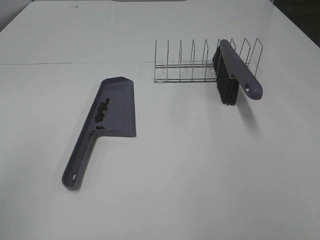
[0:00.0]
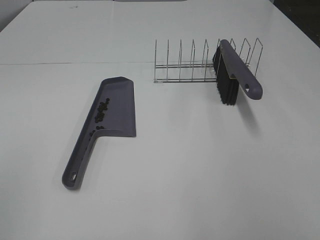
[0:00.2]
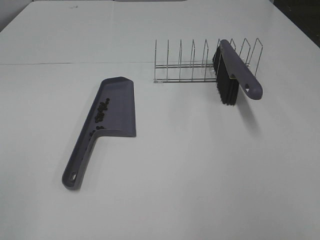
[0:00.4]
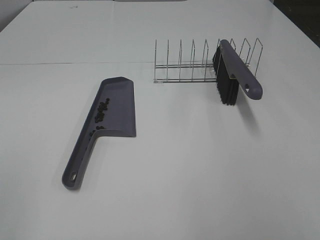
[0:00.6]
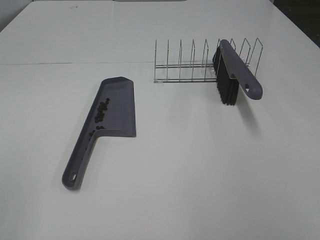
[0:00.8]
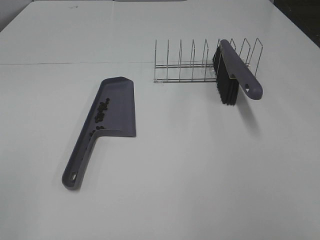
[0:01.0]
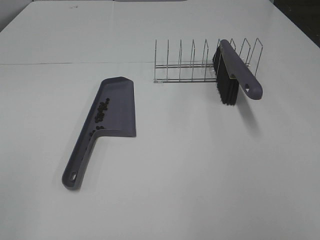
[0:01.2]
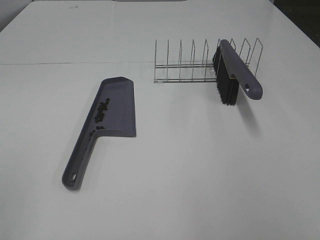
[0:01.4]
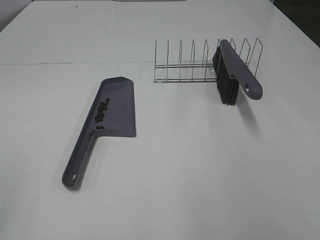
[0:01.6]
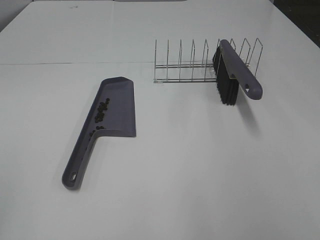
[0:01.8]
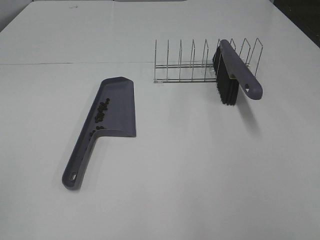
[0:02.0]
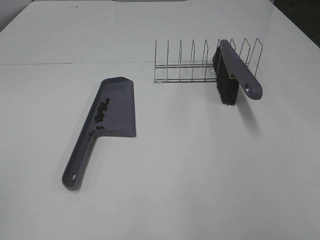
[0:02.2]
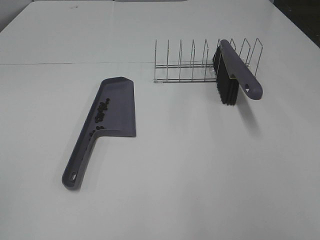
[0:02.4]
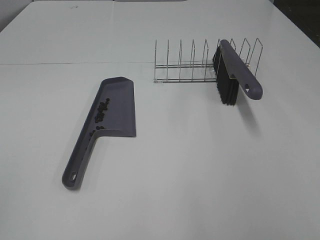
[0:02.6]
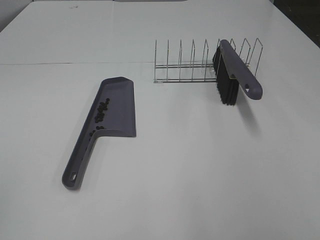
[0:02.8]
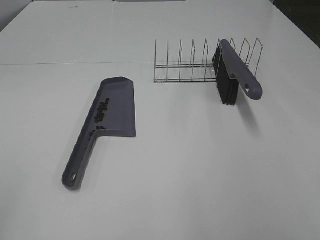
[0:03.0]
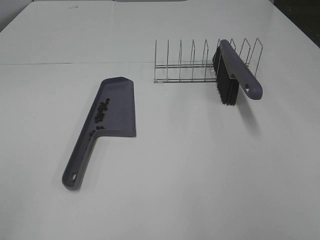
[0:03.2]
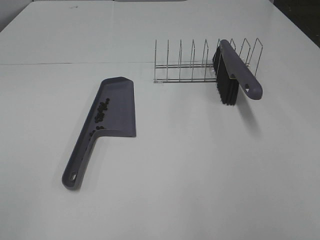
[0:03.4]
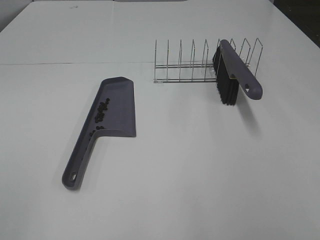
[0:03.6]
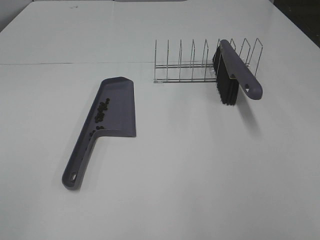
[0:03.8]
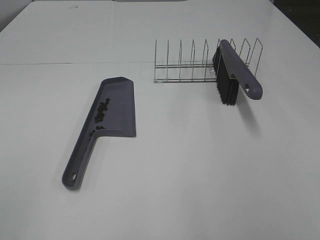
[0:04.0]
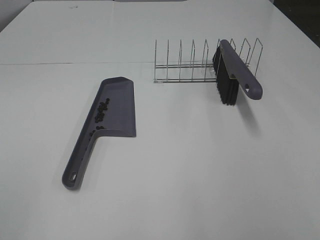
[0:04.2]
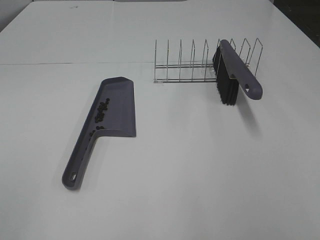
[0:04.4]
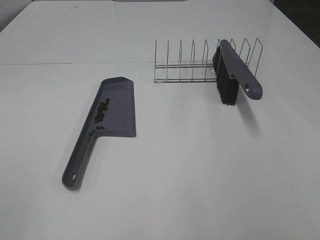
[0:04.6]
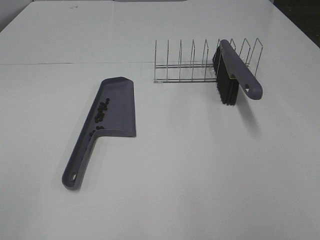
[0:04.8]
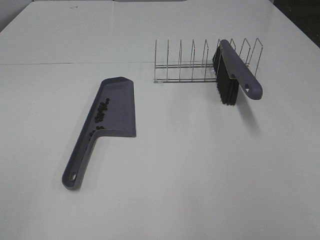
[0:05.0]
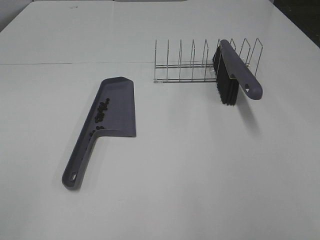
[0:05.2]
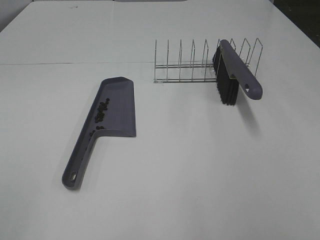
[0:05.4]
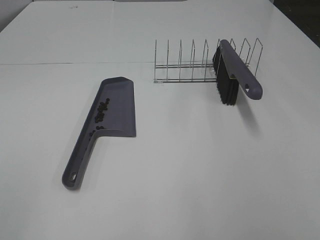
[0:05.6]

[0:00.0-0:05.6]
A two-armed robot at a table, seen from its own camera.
Task of the whole recording: Sweep Coffee Bean.
0:04.2 to 0:05.6: Neither gripper changes place.

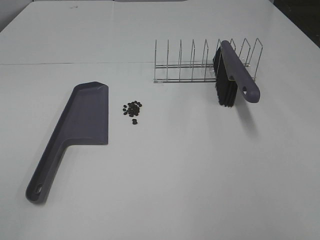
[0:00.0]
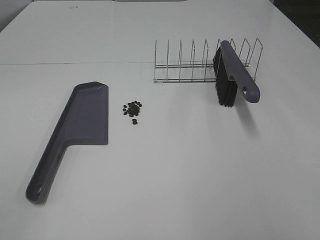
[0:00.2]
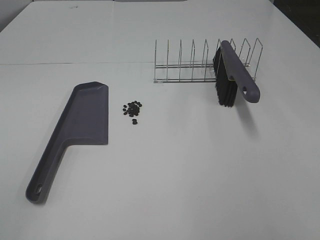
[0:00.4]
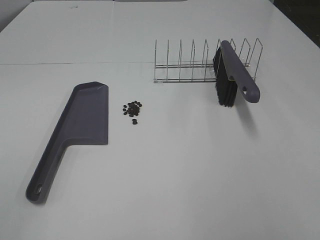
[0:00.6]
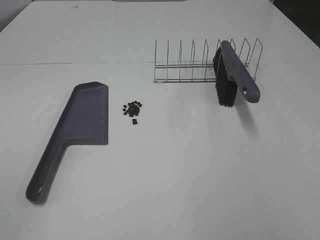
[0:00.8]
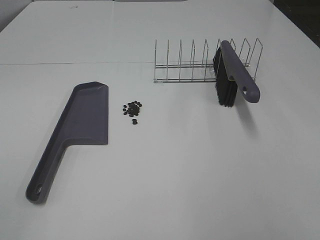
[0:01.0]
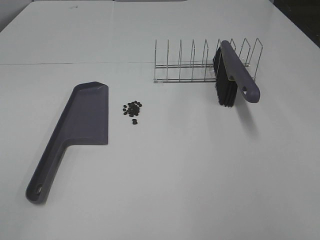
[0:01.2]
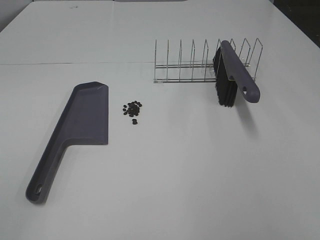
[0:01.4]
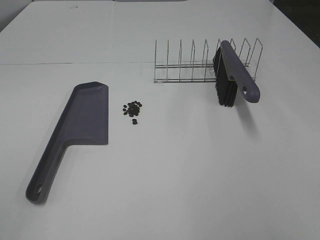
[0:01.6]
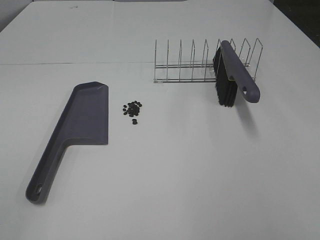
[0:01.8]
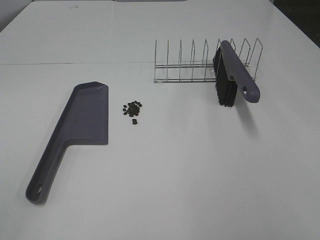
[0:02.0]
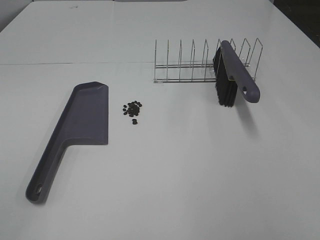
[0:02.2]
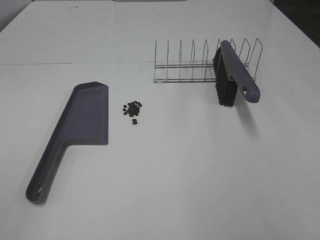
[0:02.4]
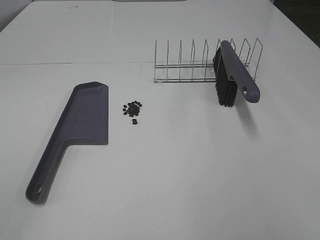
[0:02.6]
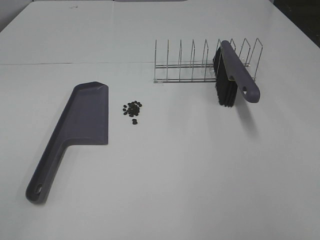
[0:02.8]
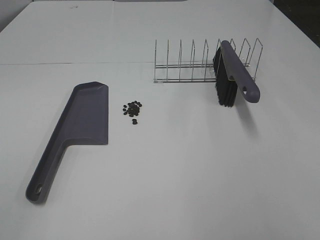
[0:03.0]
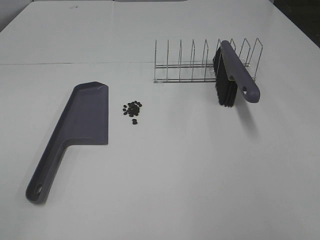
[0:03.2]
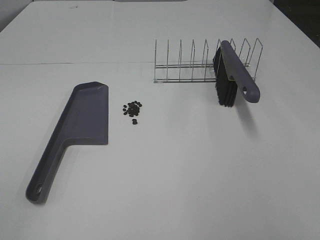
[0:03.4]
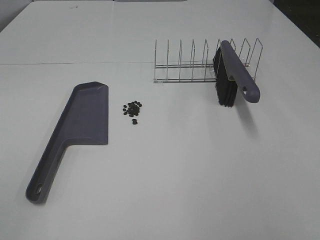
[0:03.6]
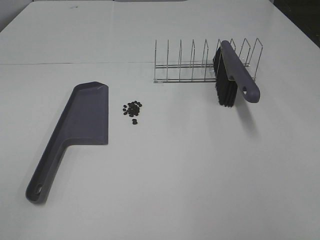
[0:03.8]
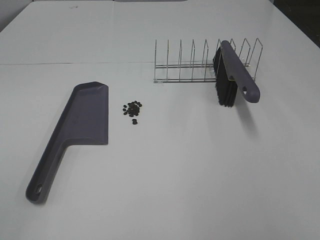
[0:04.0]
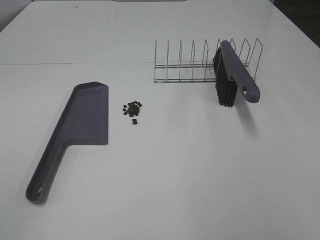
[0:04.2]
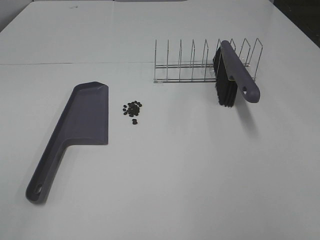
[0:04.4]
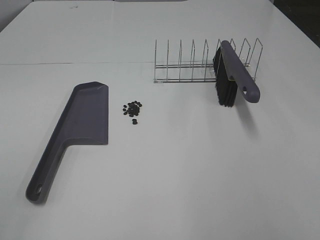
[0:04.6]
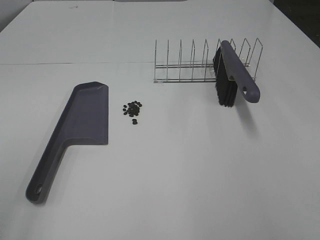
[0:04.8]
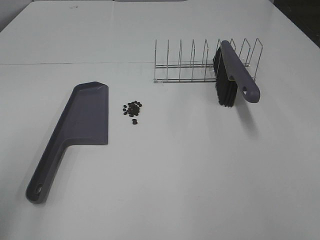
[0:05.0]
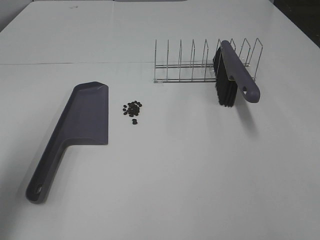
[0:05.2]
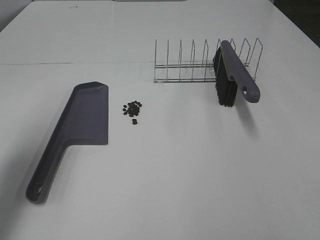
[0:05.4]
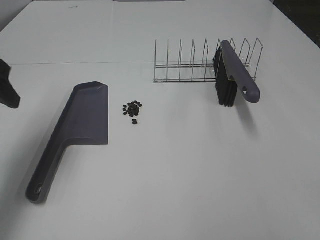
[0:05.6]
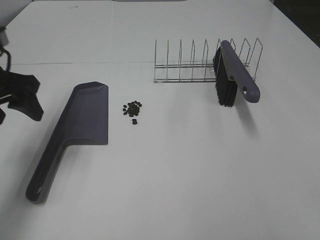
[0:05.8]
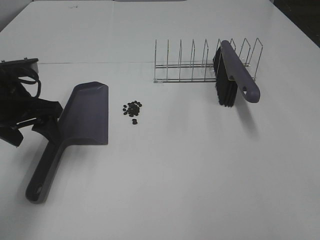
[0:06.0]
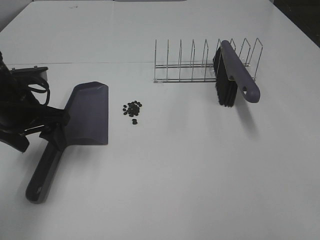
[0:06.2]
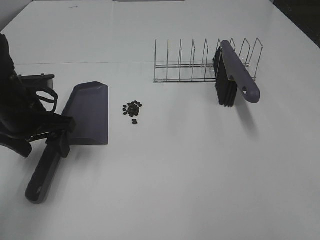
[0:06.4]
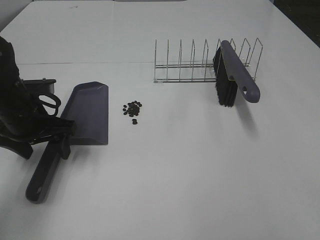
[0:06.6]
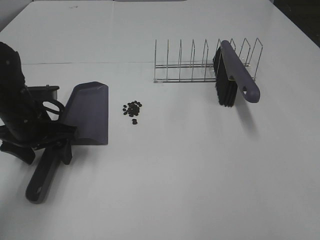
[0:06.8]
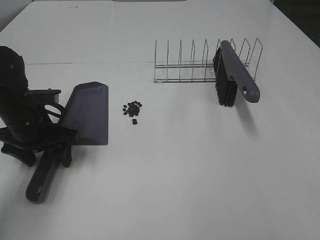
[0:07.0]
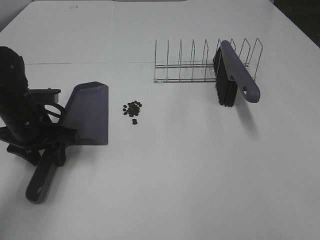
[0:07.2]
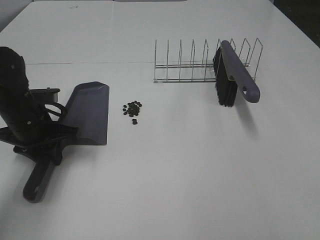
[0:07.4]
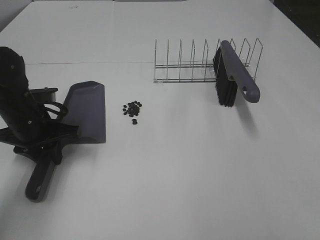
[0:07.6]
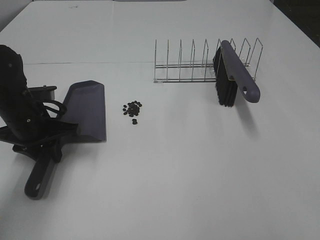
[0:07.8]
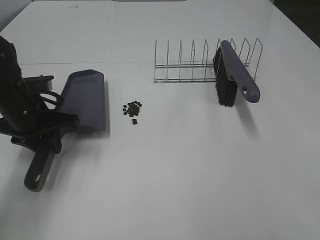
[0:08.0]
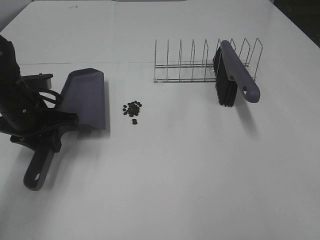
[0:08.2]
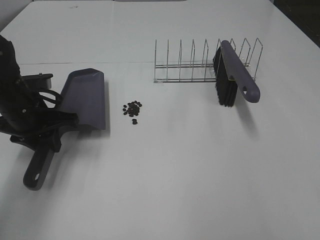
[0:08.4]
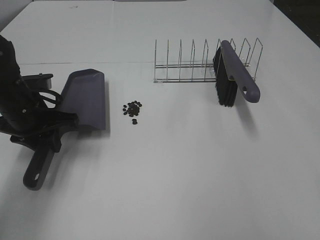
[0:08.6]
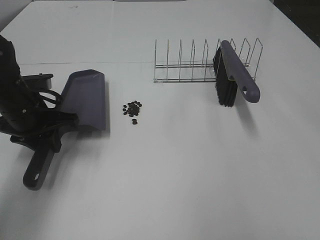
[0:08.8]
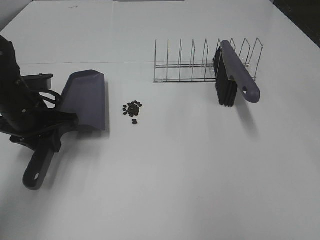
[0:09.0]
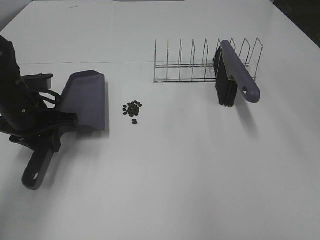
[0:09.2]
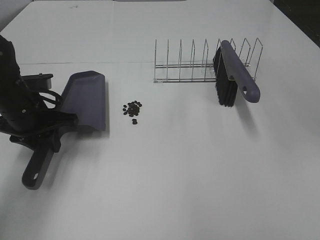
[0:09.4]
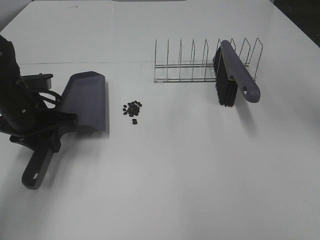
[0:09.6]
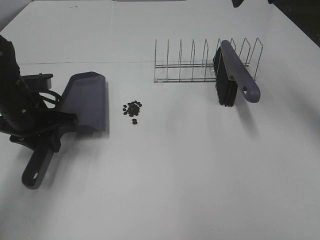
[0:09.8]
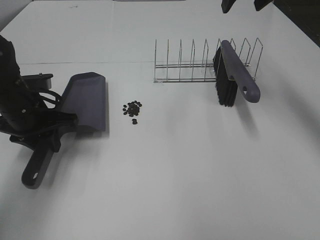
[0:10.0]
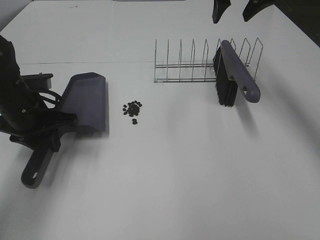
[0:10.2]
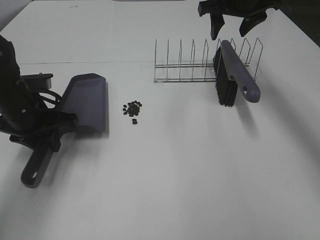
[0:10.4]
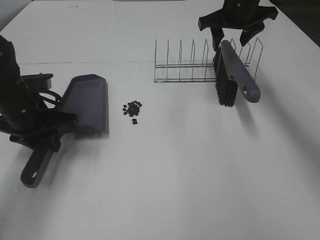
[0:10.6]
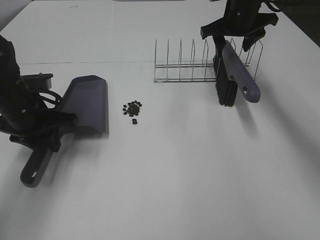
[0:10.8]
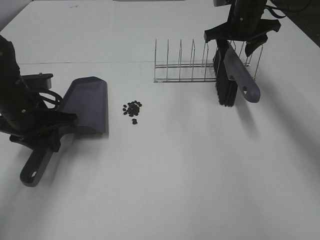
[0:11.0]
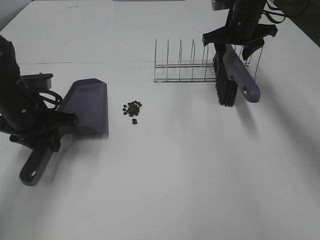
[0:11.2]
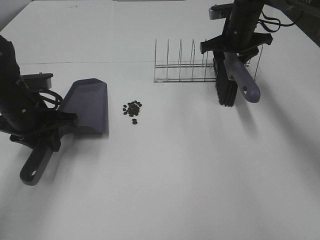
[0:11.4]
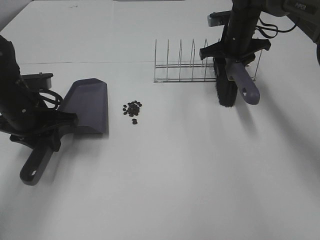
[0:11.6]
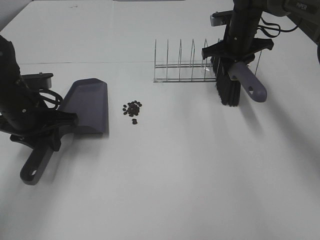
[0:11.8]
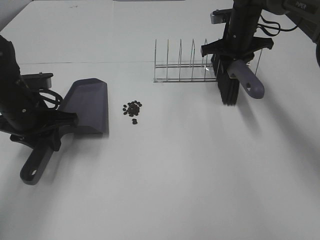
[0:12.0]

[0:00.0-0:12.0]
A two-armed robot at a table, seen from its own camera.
Task of the whole recording: Sweep Coffee Bean.
Step, 0:00.0 to 0:07.2: Left hand: grab the dustpan.
Step, 0:08.4 to 0:11.8: Right hand:grab the broom.
0:00.0 to 0:04.4: Both grippers stay put.
0:04.4 to 0:06.0: The left gripper heads forward, covering roughly 30 cm.
0:06.0 to 0:07.6: The left gripper goes about 5 cm downward, and closes its fingers.
0:09.0 to 0:10.4: The right gripper shifts roughly 35 cm forward and downward.
0:10.4 to 0:12.0: The right gripper is displaced downward by approximately 10 cm, and closes up.

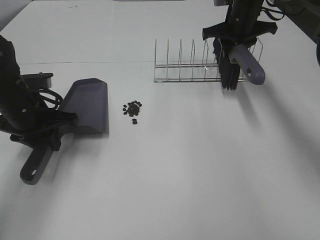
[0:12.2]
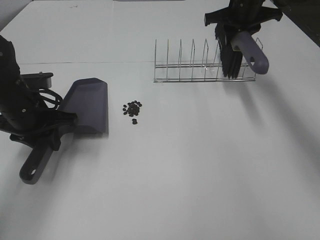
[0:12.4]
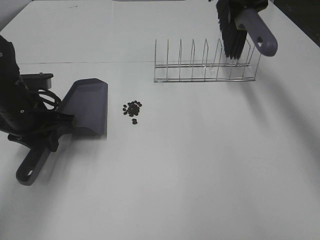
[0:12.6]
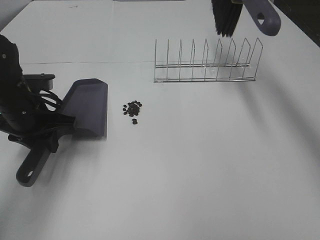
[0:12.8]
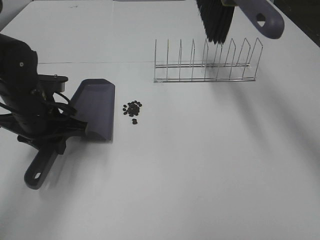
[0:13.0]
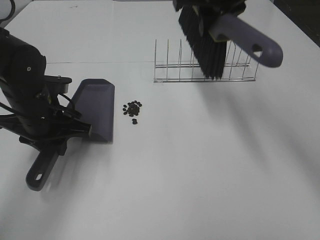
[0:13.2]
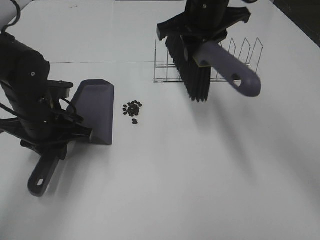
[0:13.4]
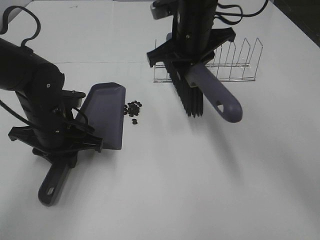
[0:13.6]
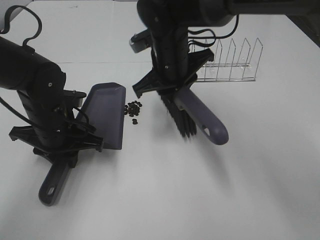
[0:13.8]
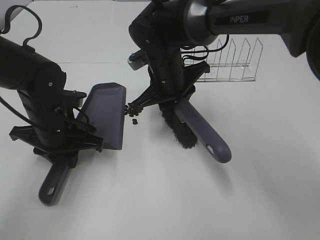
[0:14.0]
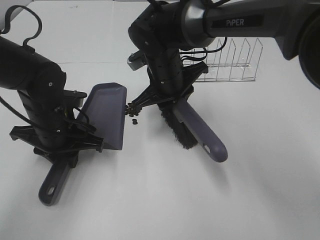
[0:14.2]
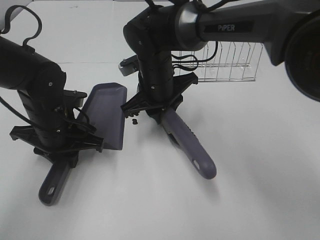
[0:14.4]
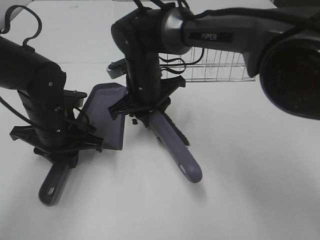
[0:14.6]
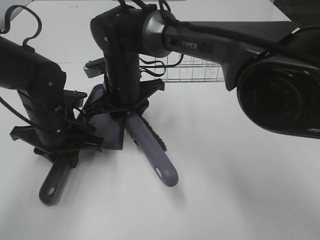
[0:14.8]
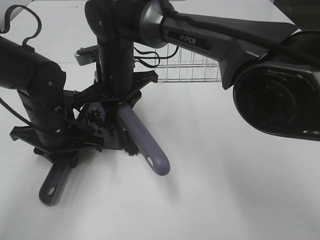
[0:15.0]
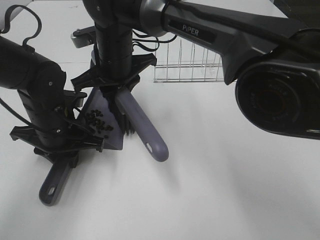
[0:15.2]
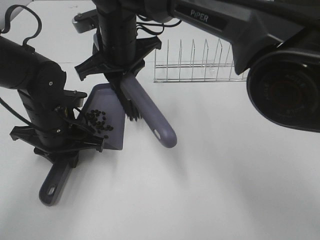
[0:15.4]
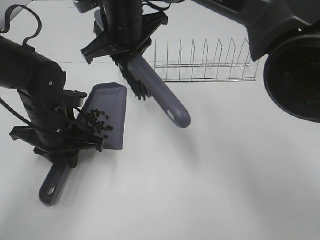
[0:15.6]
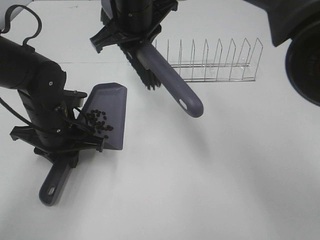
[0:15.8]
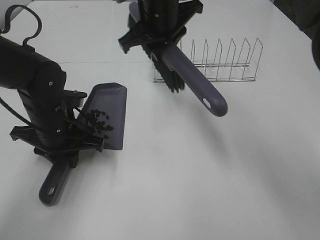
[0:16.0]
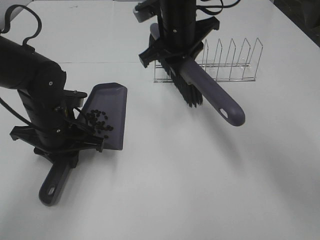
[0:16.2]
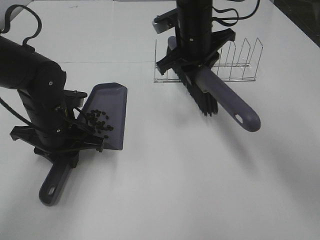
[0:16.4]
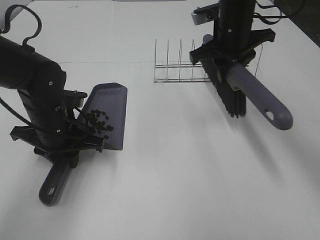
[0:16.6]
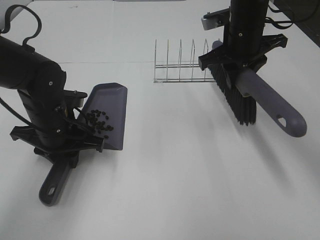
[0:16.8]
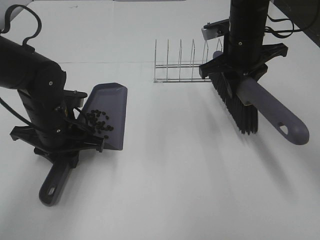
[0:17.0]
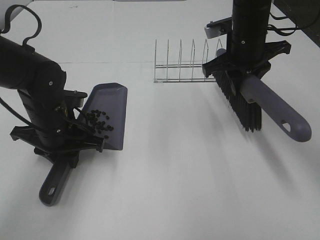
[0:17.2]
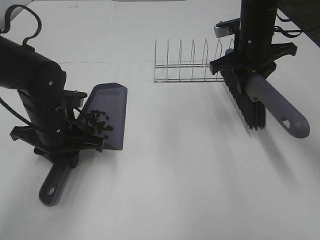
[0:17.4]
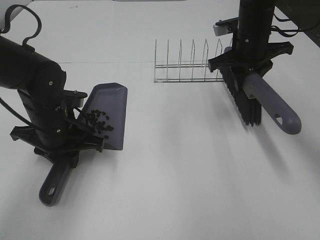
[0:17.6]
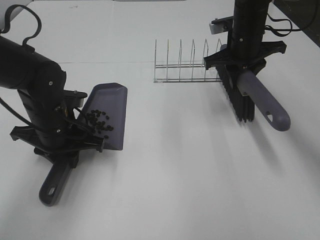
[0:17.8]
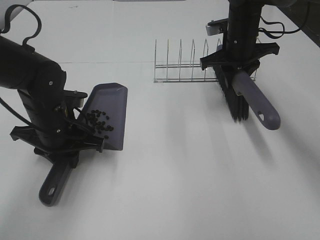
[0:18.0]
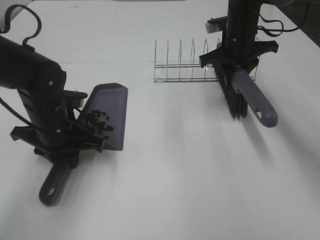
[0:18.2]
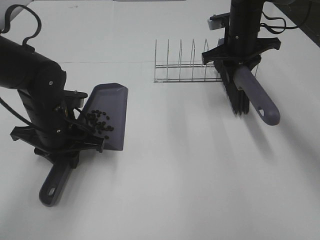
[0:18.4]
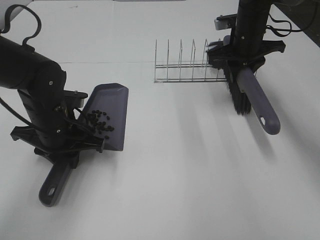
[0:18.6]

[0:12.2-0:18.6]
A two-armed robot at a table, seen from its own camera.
Task of the whole recording: Sweep Coffee Bean.
Step, 0:12.2 to 0:15.4: Right hand:sweep the coffee beans into the dustpan.
0:12.2 to 0:13.8: The left gripper travels to the right by about 5 cm. The right gripper is displaced to the left and backward by roughly 20 cm, and reaches some 15 cm upward, then returns.
0:13.8 to 0:15.4: The right gripper is displaced to the left by some 10 cm.
0:15.4 to 0:17.0: The right gripper shifts roughly 20 cm to the right.
0:17.0 to 0:18.6: The right gripper moves forward, some 10 cm.
